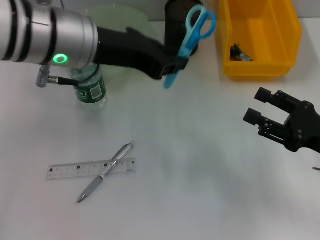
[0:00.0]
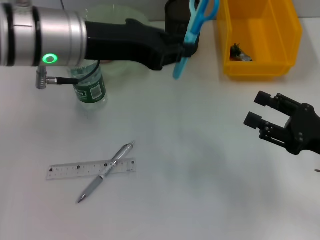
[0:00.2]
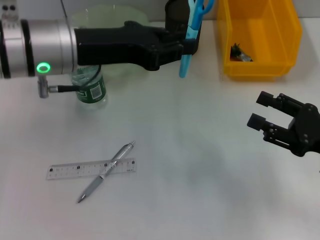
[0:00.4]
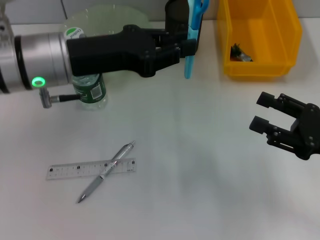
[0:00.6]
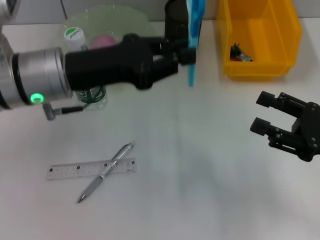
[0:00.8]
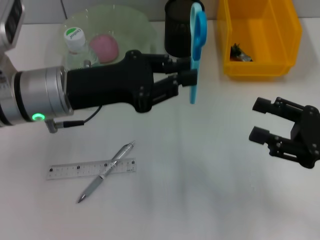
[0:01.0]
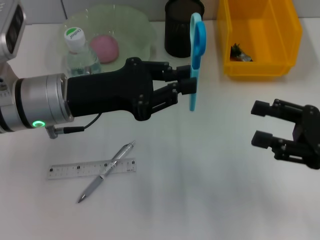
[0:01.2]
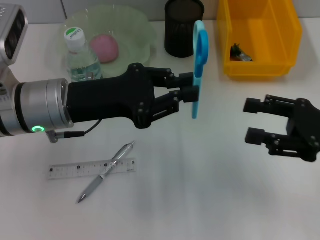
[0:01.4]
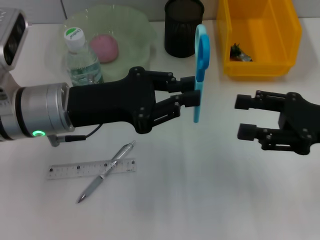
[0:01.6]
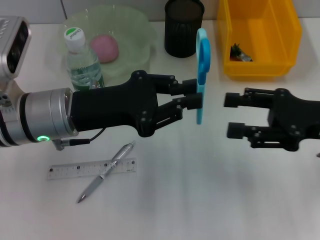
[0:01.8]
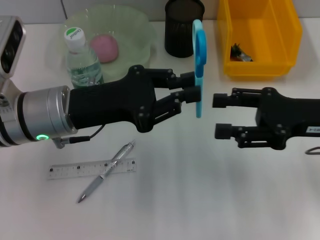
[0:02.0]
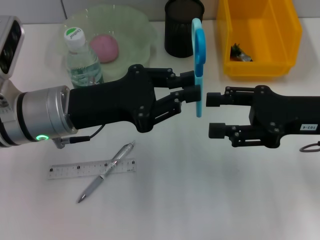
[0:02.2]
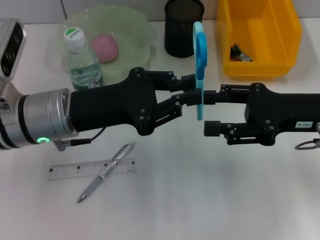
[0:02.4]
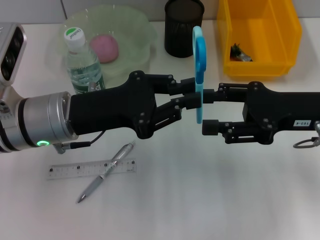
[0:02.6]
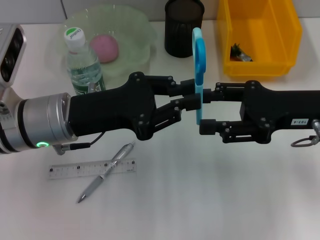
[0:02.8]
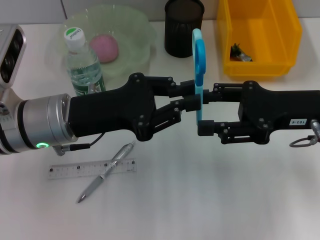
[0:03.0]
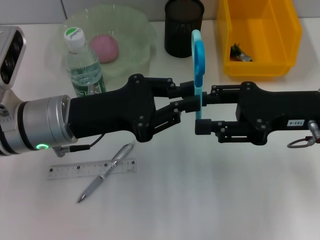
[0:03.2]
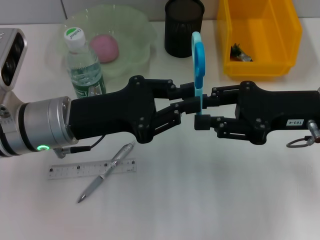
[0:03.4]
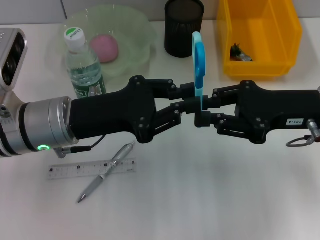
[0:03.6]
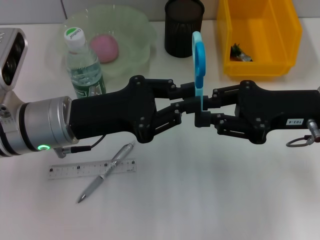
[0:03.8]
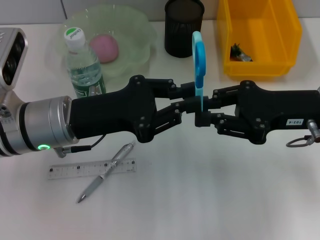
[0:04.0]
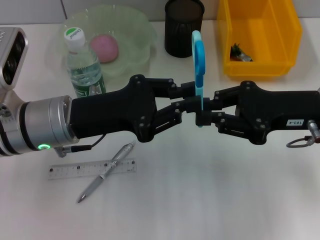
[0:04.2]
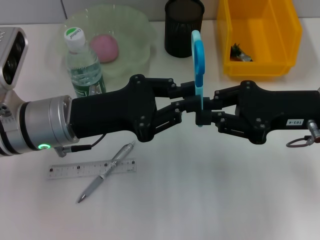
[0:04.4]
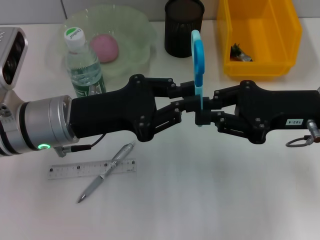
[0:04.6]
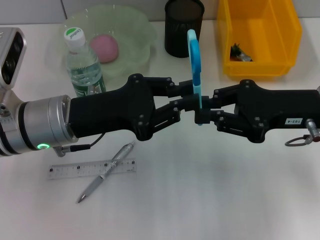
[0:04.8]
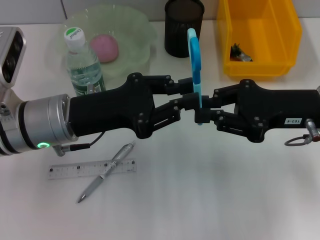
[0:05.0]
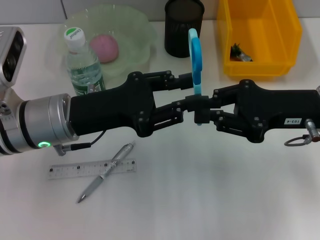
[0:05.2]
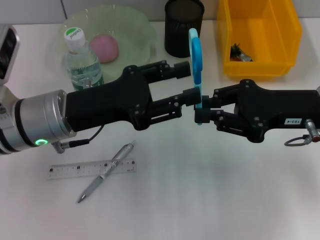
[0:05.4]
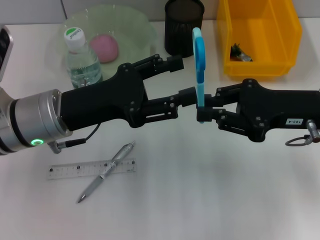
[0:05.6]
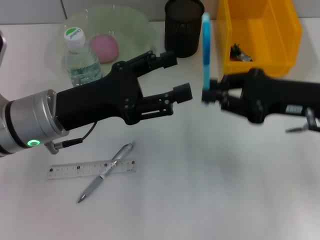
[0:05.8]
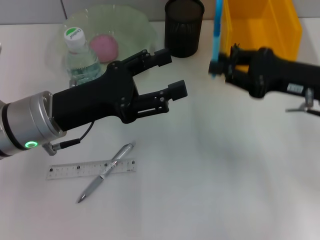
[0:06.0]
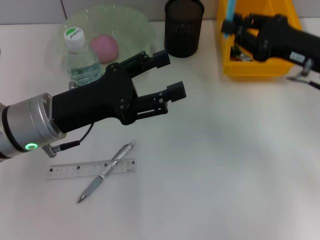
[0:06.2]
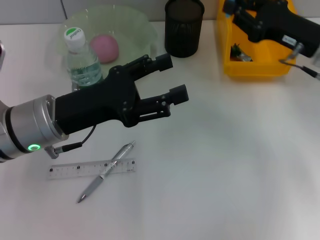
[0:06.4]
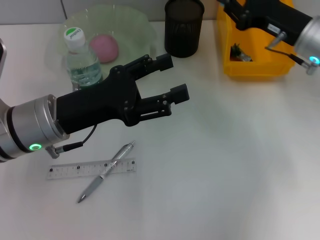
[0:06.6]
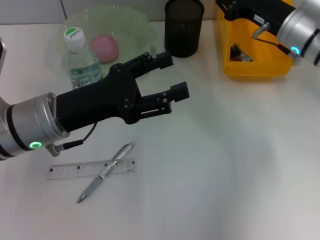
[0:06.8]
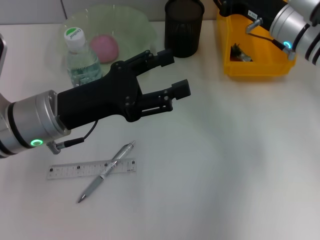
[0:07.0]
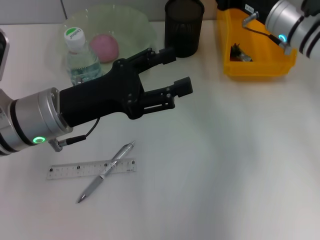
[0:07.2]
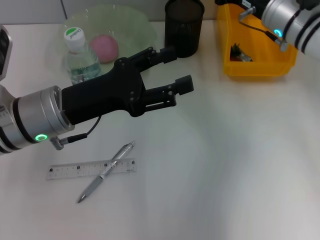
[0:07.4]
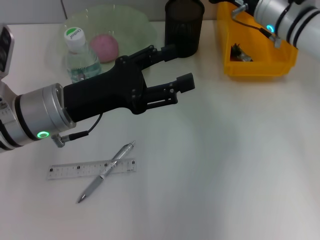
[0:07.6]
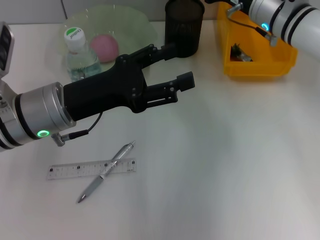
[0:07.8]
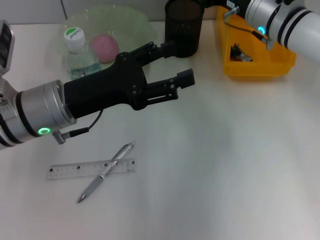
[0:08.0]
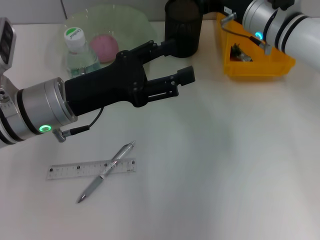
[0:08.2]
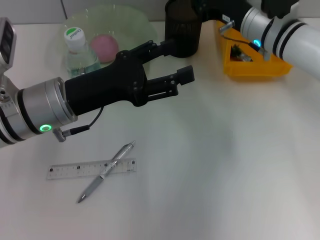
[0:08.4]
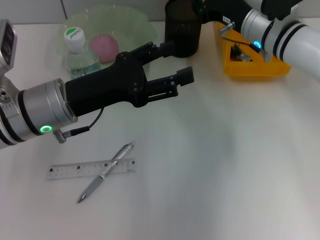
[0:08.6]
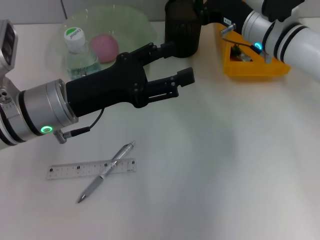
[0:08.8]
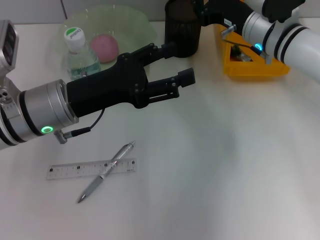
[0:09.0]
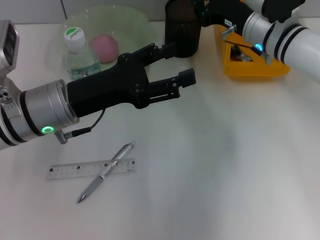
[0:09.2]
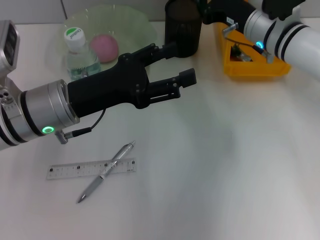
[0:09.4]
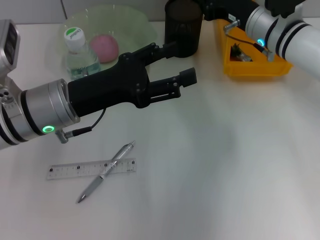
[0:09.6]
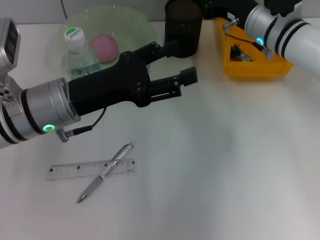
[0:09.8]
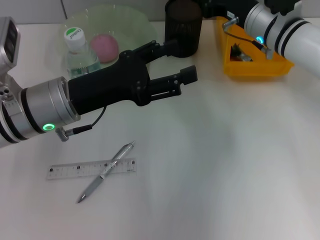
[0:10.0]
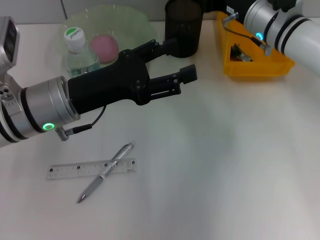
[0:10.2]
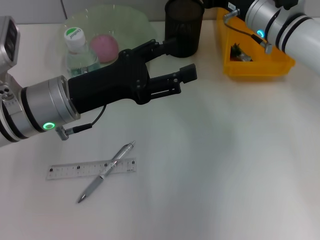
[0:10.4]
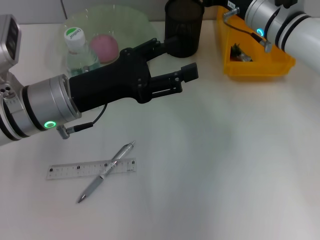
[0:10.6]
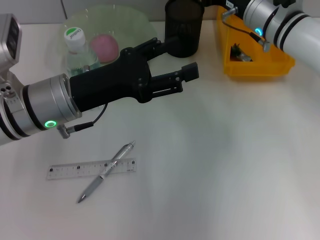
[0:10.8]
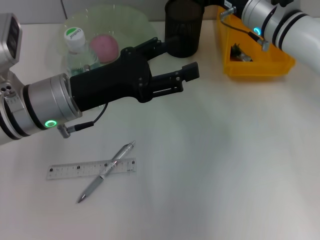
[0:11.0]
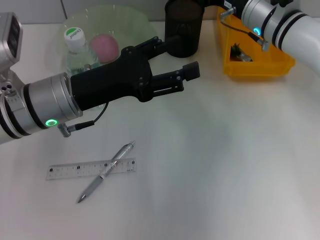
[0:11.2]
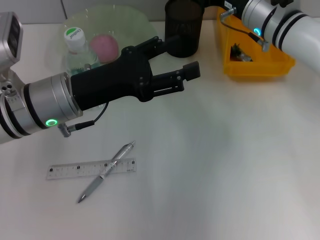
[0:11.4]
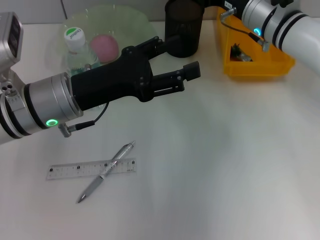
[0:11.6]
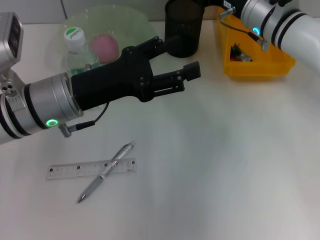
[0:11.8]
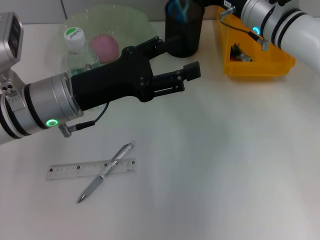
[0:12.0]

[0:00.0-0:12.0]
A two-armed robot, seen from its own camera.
Step, 0:00.0 to 0:05.8: Pass the blue scissors from the left hand to the right hand.
0:00.0 to 0:01.6: The right gripper travels upward by some 5 cm. The left gripper heads downward, covering roughly 10 cm.
0:01.6 to 0:03.0: The right gripper moves roughly 5 cm.
0:03.0 to 0:04.4: The right gripper closes.
0:04.4 to 0:06.0: The left gripper opens.
0:06.0 to 0:07.6: The right gripper goes some 15 cm forward and to the left.
0:07.6 to 0:10.4: The grippers move only a little.
0:10.4 to 0:12.0: Both grippers stay put.

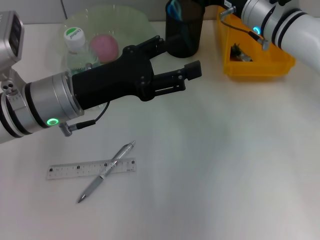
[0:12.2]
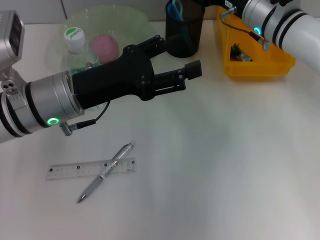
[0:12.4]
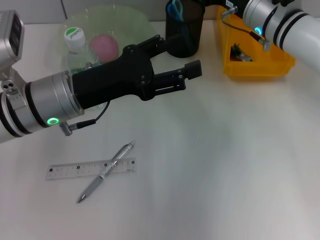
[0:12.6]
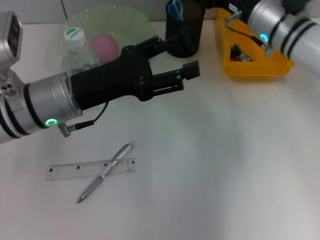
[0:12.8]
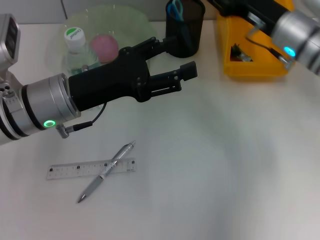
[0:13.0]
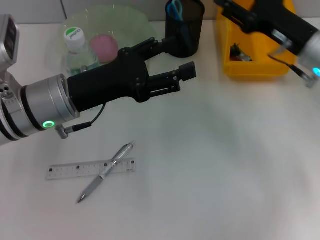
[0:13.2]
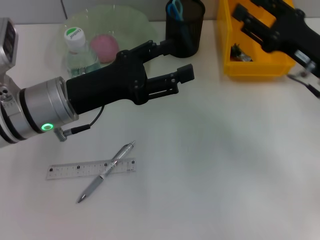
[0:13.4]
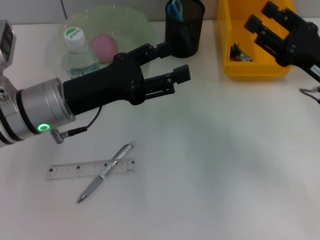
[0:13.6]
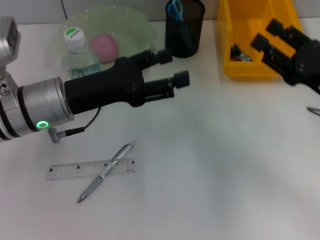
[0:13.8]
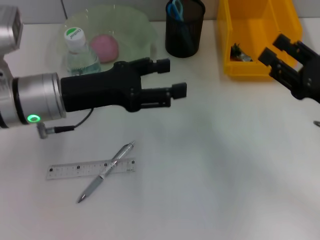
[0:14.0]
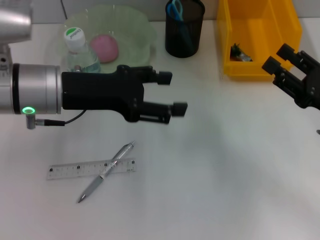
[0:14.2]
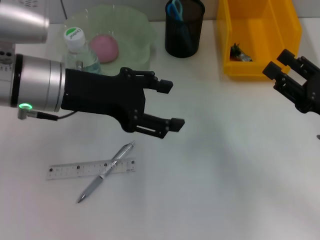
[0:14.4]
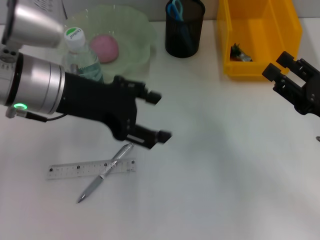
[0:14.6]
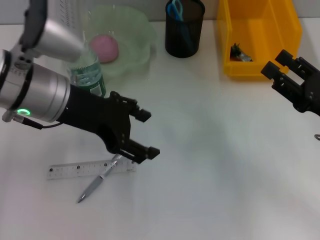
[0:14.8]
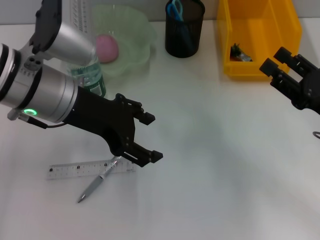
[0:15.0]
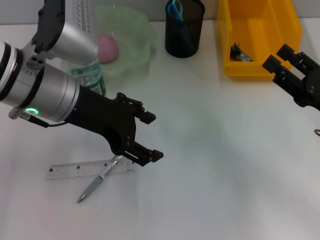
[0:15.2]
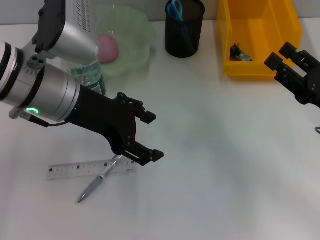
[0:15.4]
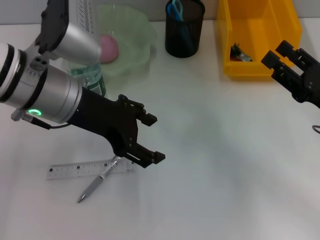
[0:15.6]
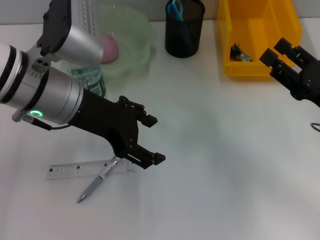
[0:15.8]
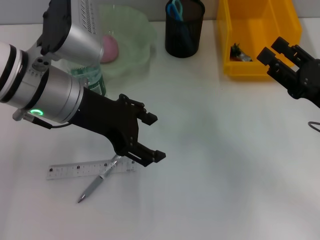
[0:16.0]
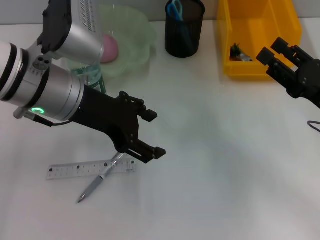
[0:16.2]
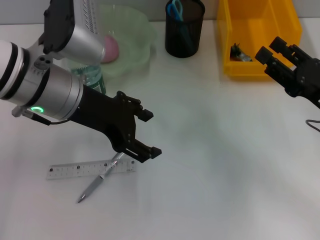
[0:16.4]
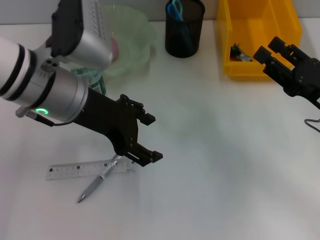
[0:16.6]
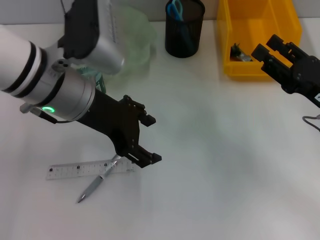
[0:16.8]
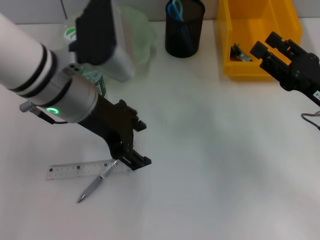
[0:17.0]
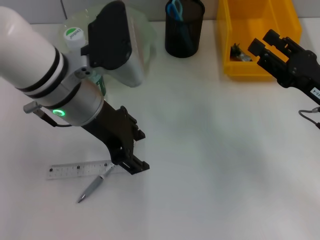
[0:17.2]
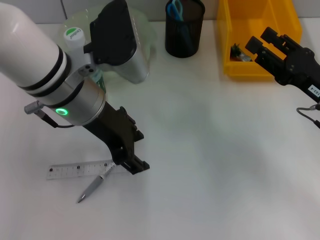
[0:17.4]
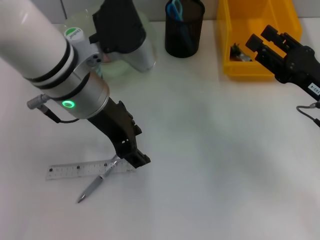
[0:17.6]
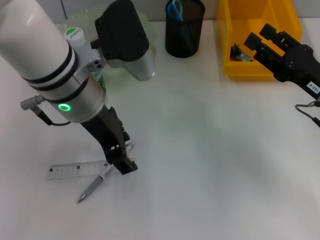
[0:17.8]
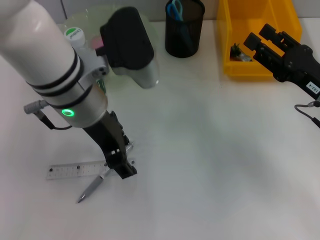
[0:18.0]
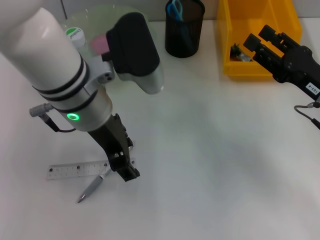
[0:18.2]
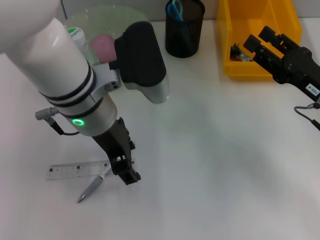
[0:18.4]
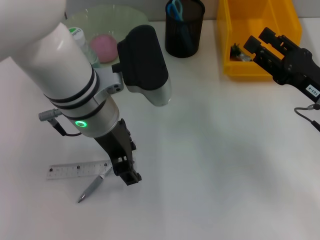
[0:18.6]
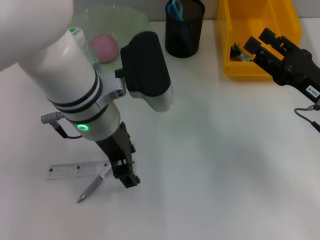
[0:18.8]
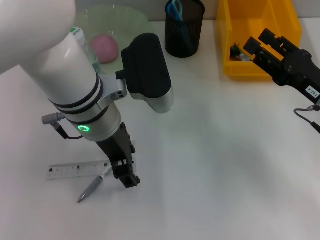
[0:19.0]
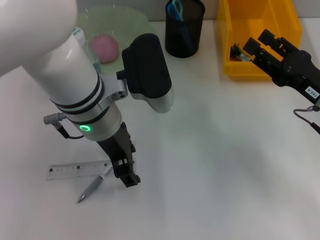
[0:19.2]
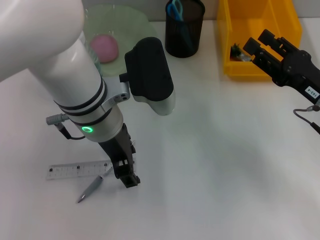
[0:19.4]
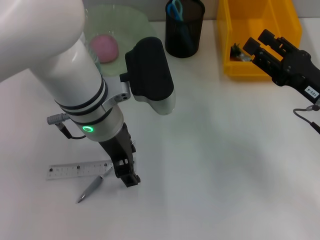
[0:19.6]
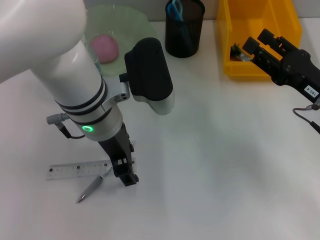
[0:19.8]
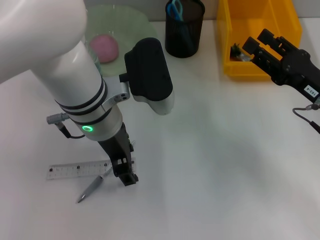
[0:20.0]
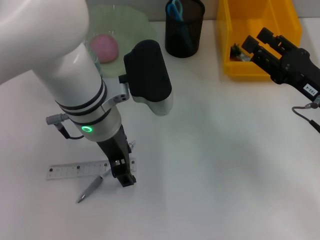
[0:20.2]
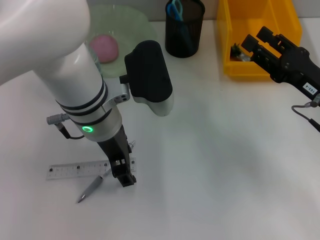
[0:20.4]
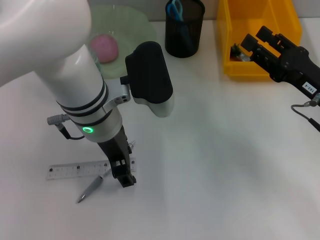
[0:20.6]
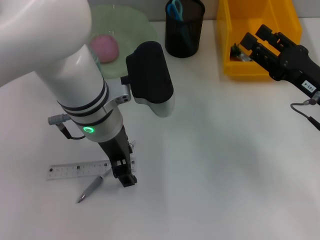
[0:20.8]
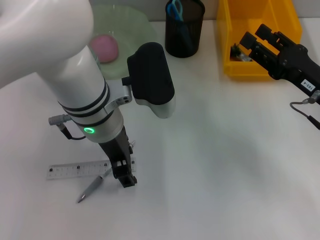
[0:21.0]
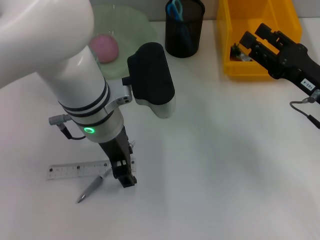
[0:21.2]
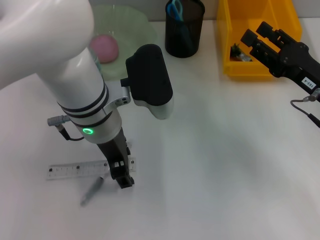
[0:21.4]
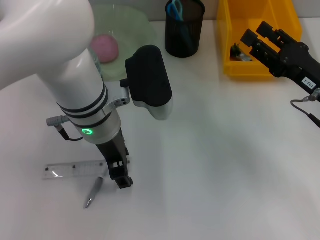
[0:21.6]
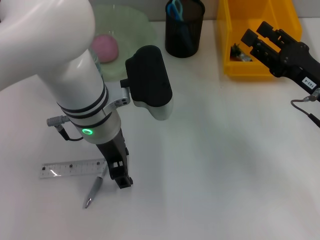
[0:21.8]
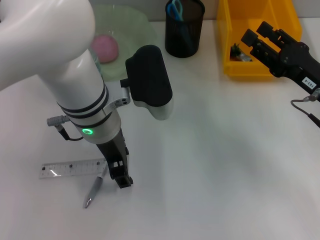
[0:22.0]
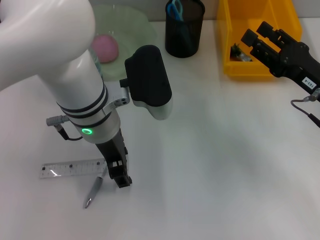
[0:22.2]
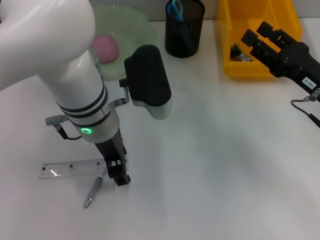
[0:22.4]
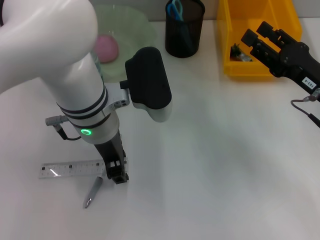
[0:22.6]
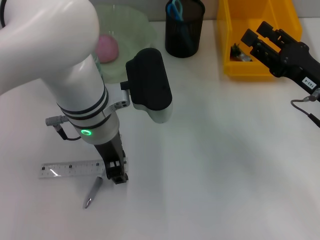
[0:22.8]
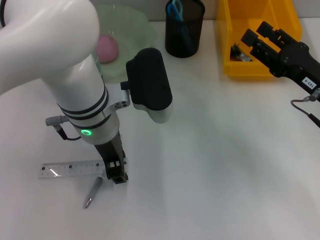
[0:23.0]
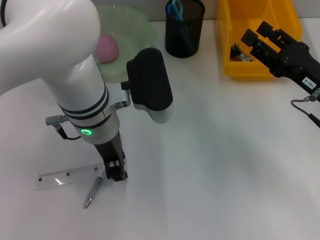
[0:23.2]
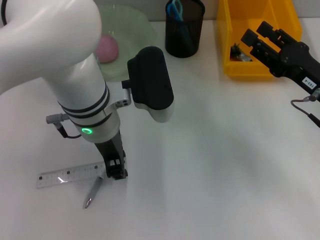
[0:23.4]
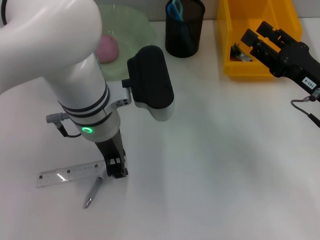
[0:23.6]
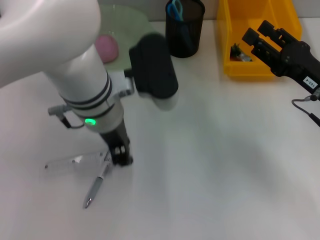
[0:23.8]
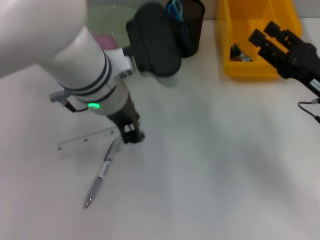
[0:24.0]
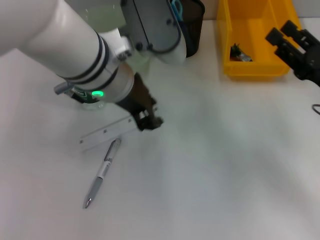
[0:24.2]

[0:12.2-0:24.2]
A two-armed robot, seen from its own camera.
Step, 0:13.0 to 0:22.6: Grab the ruler with the left hand.
0:12.2 to 0:13.8: The right gripper is displaced backward and to the right by approximately 20 cm, and opens up.
0:13.8 to 0:15.2: The left gripper travels upward by some 5 cm.
0:15.2 to 0:16.6: The grippers move only a little.
0:18.2 to 0:19.8: The grippers make only small movements.
0:19.8 to 0:22.6: Both grippers stay about where they are.
0:22.6 to 0:24.2: The left gripper is displaced upward by roughly 5 cm, and closes up.
